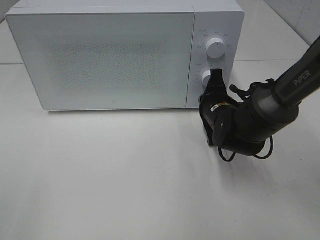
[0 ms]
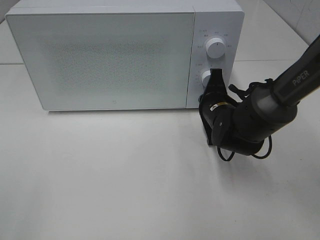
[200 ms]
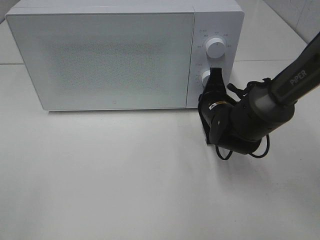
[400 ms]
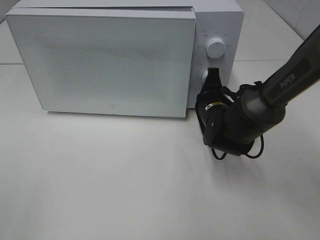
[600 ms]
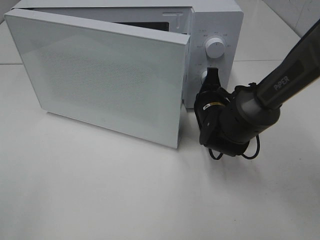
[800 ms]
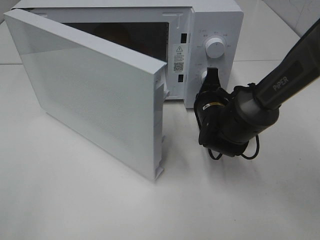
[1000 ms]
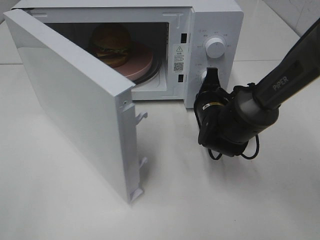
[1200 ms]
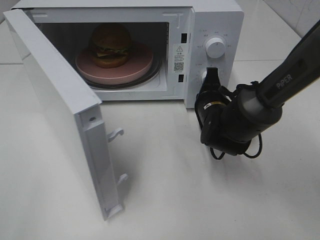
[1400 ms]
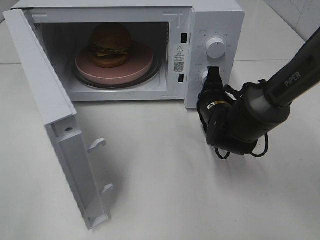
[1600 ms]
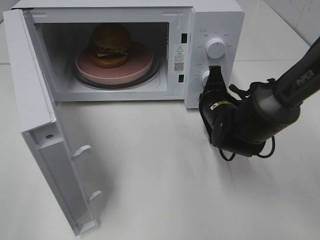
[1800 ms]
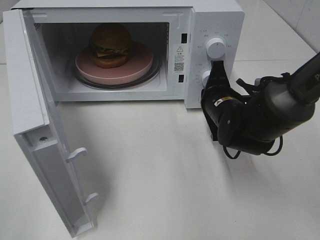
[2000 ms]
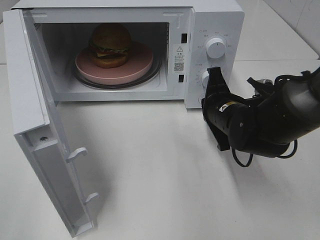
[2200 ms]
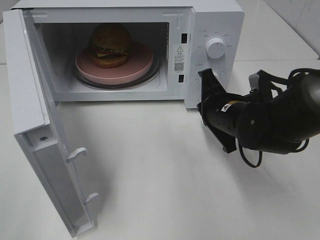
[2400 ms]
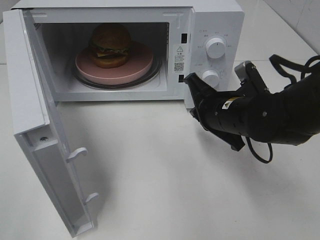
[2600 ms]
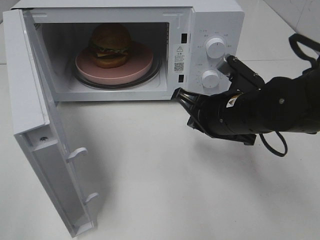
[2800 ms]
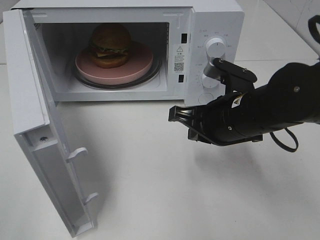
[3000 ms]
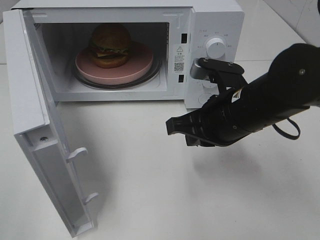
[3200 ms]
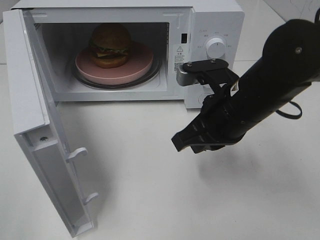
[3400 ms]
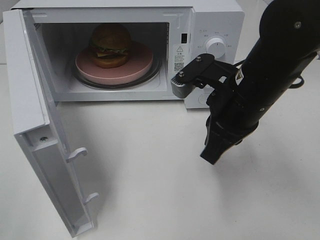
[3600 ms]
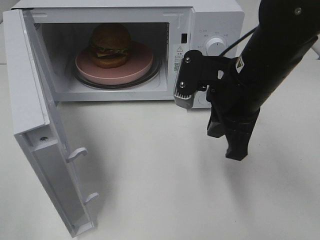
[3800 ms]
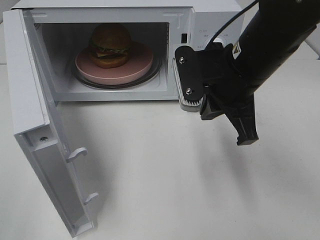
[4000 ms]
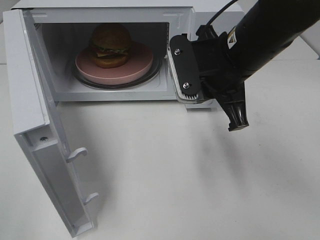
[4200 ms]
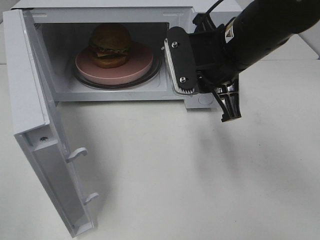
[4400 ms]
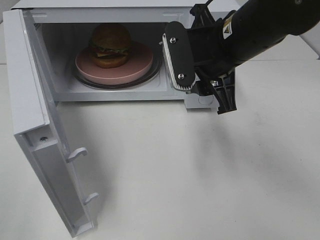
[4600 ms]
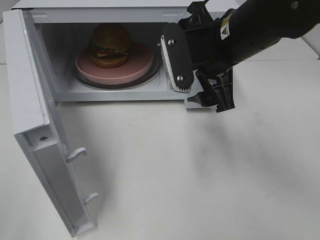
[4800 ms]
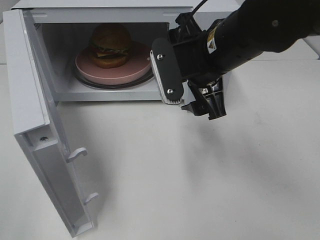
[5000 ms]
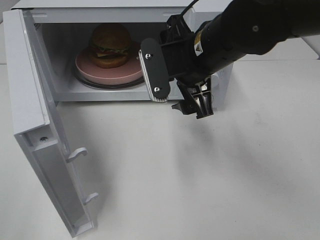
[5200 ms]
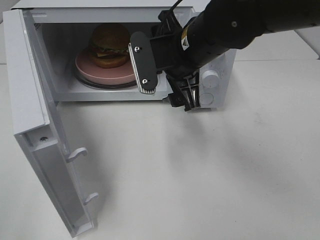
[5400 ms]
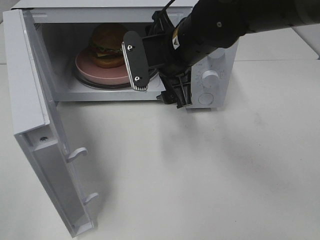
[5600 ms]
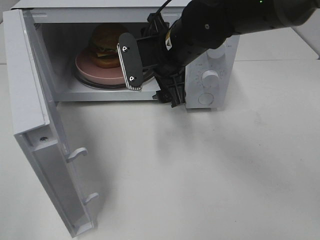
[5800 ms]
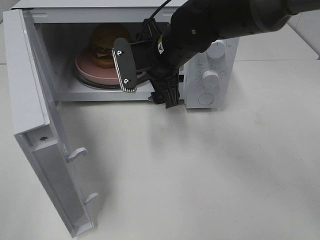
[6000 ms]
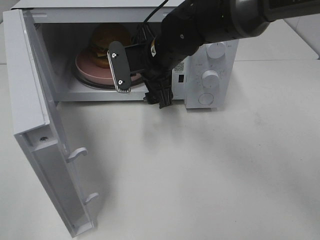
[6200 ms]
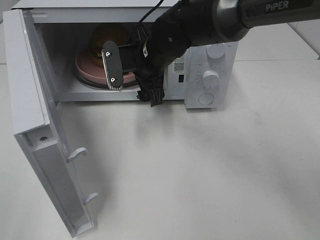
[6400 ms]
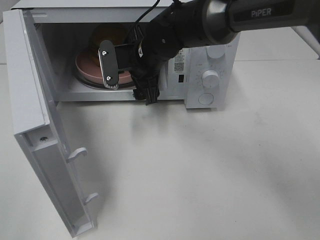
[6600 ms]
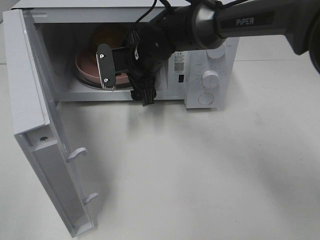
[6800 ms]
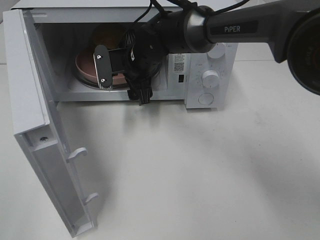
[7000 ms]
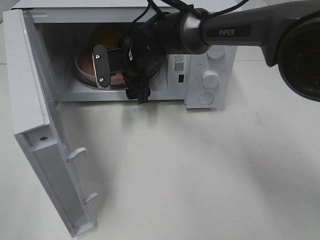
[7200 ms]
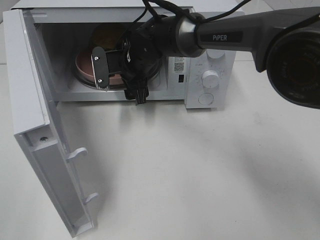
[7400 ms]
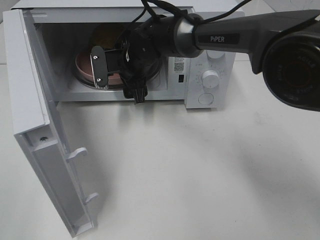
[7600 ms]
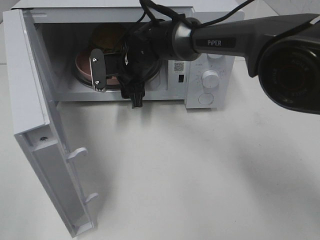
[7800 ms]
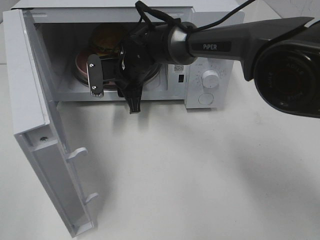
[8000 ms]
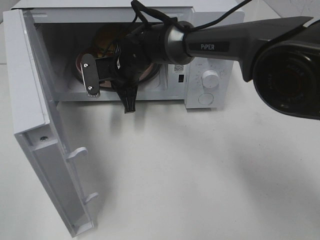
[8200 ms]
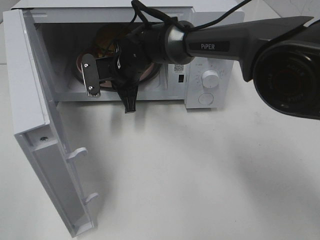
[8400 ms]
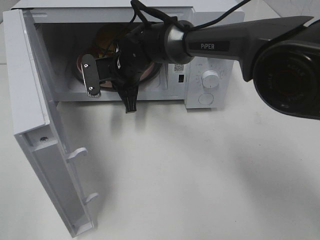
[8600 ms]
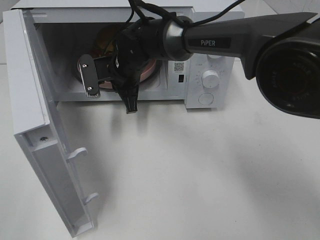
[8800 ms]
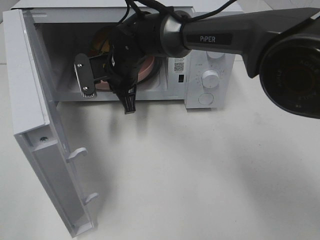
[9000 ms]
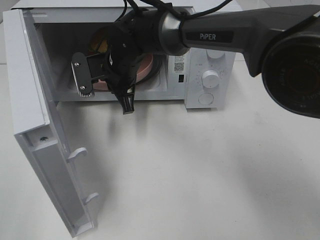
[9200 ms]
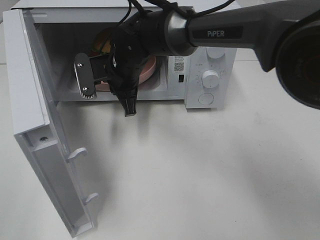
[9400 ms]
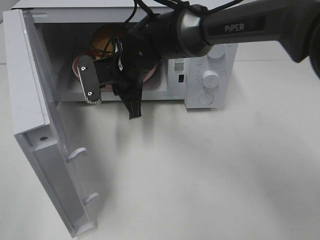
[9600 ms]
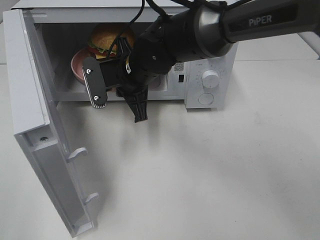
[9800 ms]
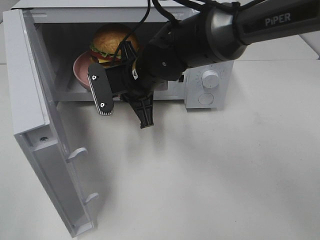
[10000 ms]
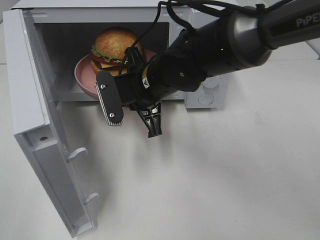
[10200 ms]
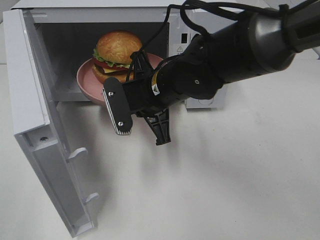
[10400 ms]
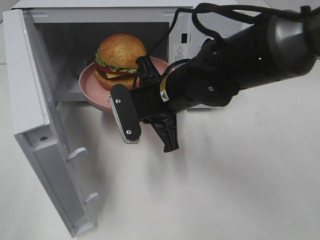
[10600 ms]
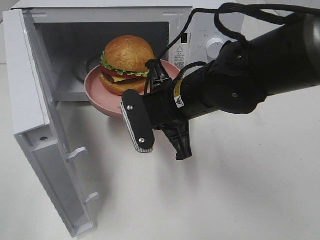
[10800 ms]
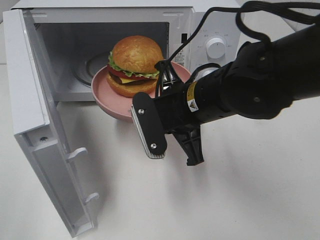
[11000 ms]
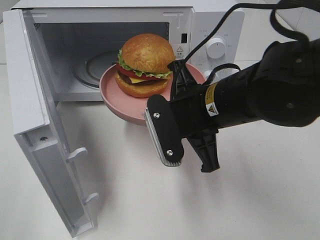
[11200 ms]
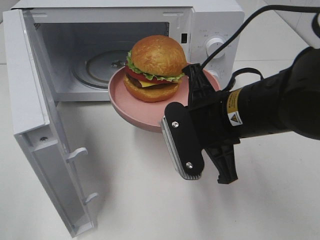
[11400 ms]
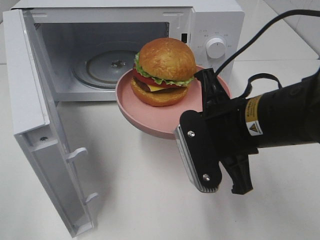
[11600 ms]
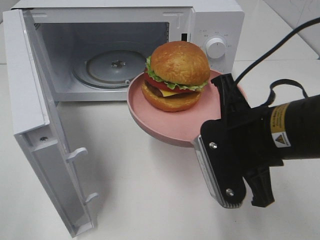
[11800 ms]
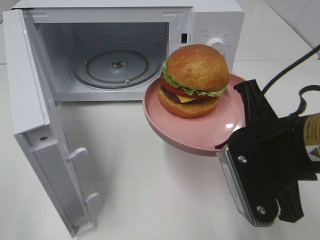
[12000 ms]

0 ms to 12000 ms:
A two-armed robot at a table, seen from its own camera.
Task of the whole recording: Heat the burger.
Step, 0 ms to 2000 ms: Right hand: press the switch.
Step, 2200 ms to 8000 ms: Right hand: grab the plate with the hamburger.
1600 ms to 3000 ms: The right gripper heads backward and upward, covering roughly 15 cm.
3000 ms to 4400 ms: The right gripper shifts approximately 10 cm upward.
4400 ms to 6000 ms: The right gripper shifts about 10 cm to the left, forward and downward, and opens.
6000 ms to 7600 ms: The right gripper moves forward, downward and to the left, some 10 cm.
7600 ms to 9000 ms: The right gripper closes up.
9000 ms to 10400 ms: The right gripper moves backward and to the right, some 10 cm.
10400 ms to 12000 ms: The right gripper moves backward and to the right, roughly 20 cm.

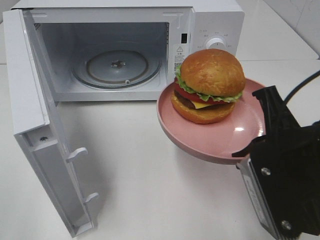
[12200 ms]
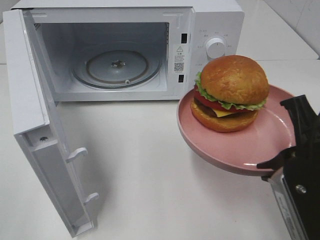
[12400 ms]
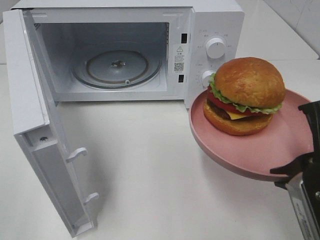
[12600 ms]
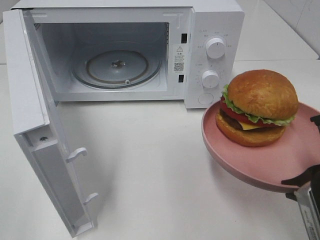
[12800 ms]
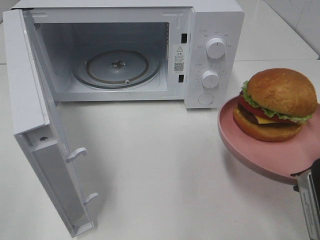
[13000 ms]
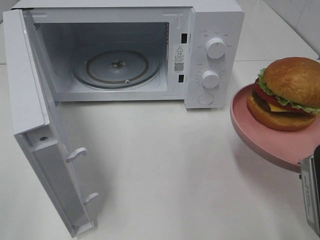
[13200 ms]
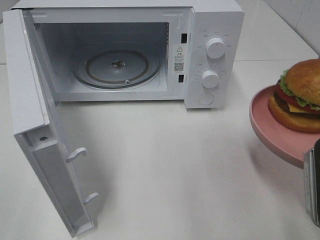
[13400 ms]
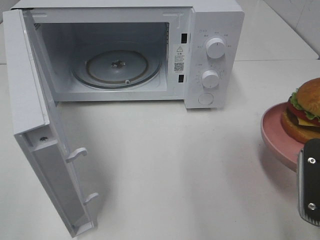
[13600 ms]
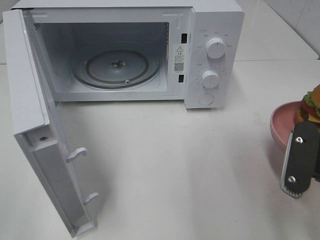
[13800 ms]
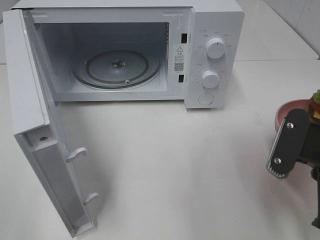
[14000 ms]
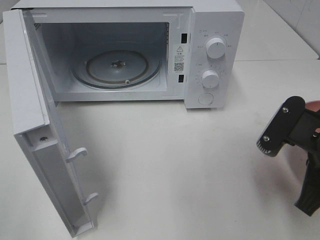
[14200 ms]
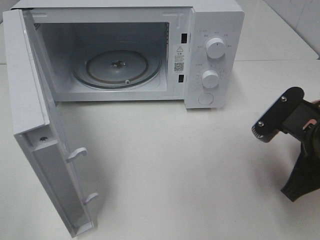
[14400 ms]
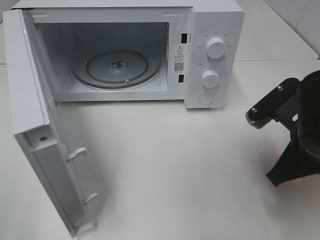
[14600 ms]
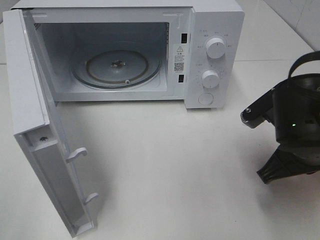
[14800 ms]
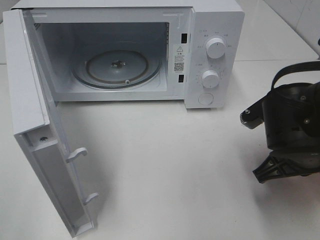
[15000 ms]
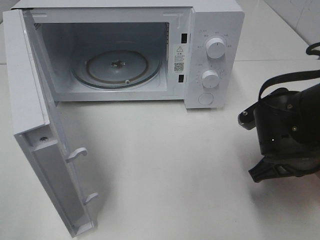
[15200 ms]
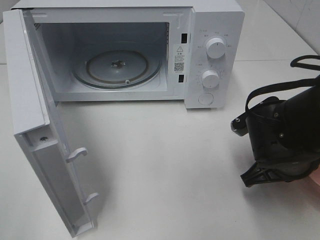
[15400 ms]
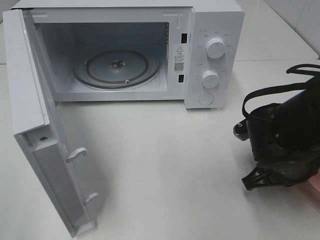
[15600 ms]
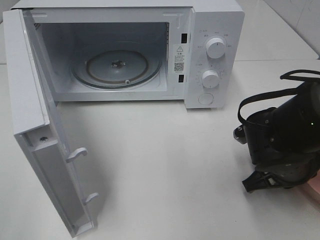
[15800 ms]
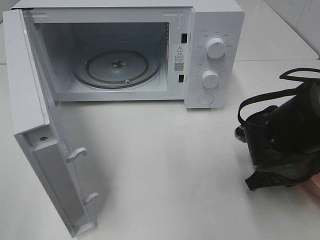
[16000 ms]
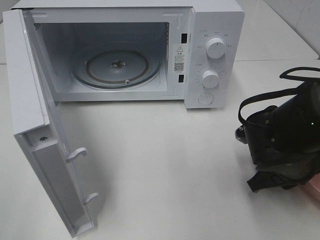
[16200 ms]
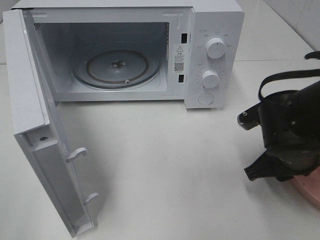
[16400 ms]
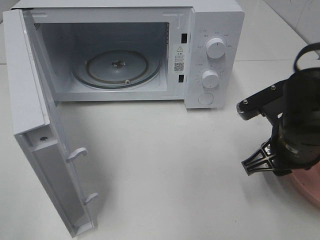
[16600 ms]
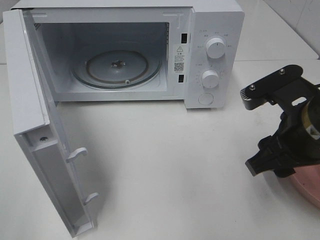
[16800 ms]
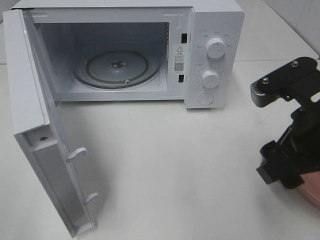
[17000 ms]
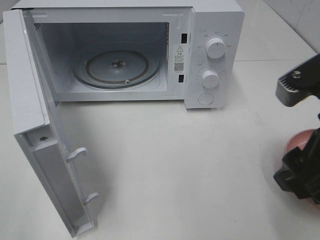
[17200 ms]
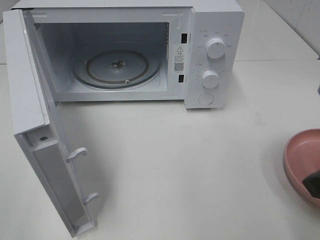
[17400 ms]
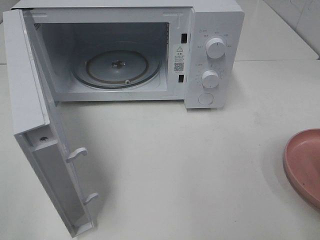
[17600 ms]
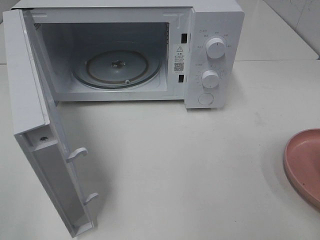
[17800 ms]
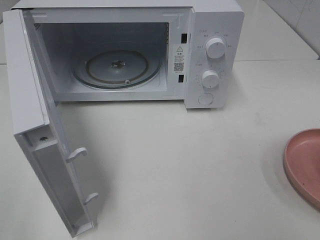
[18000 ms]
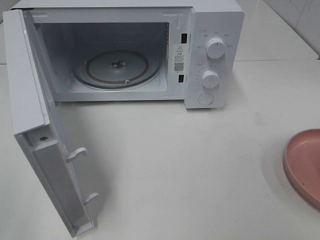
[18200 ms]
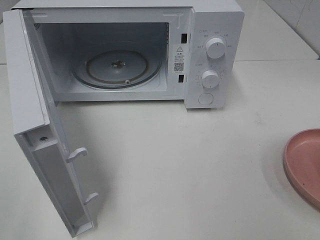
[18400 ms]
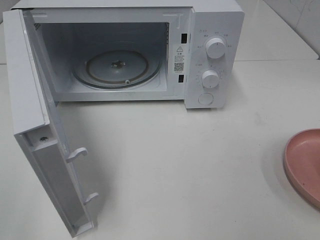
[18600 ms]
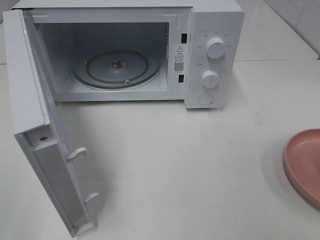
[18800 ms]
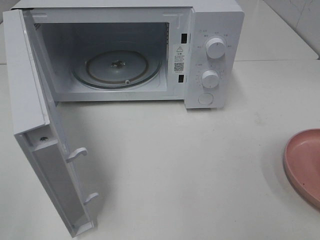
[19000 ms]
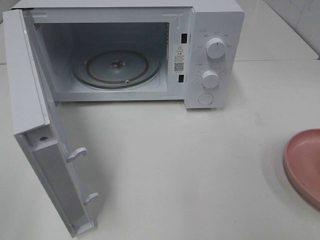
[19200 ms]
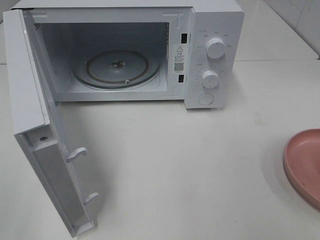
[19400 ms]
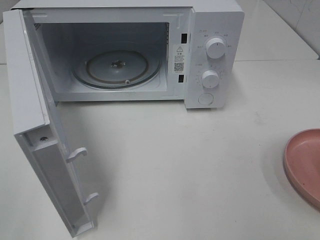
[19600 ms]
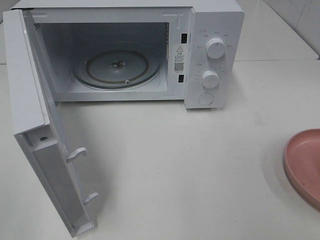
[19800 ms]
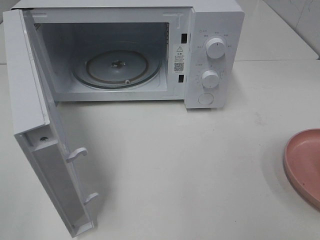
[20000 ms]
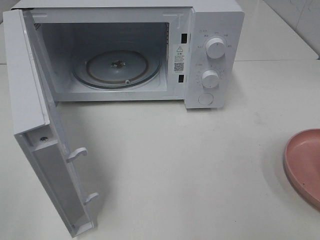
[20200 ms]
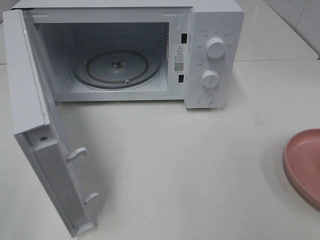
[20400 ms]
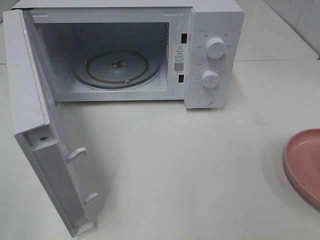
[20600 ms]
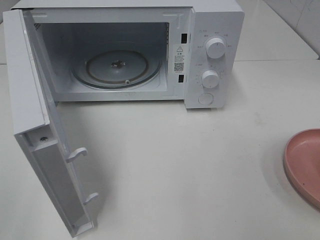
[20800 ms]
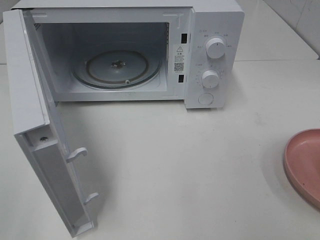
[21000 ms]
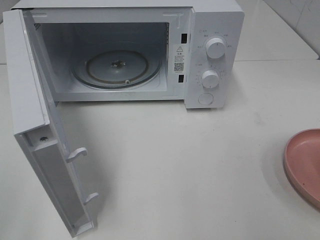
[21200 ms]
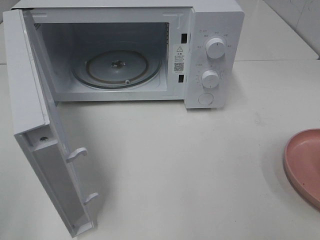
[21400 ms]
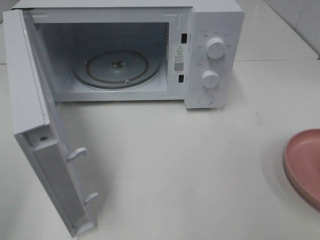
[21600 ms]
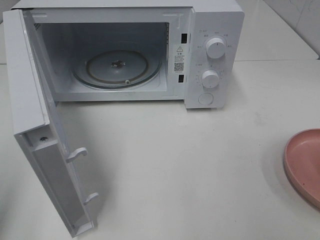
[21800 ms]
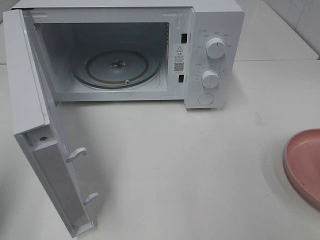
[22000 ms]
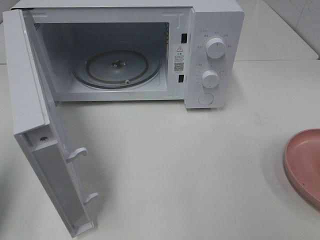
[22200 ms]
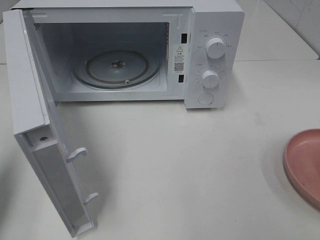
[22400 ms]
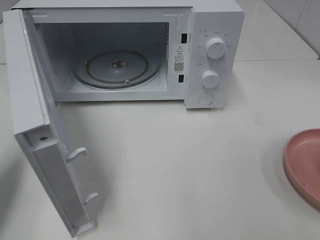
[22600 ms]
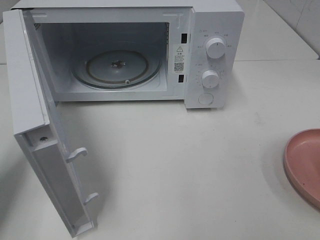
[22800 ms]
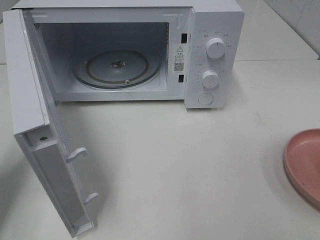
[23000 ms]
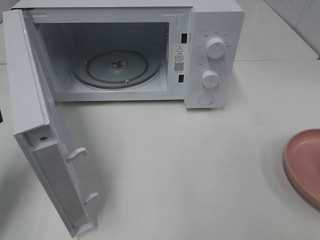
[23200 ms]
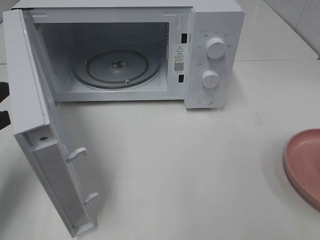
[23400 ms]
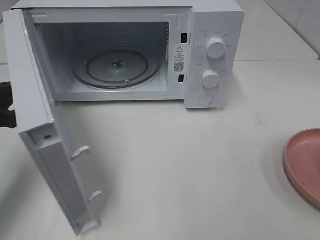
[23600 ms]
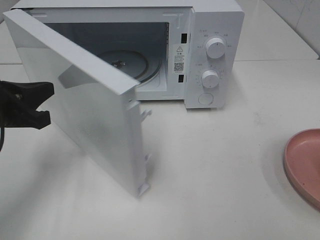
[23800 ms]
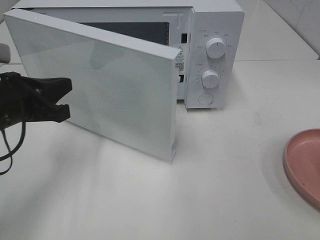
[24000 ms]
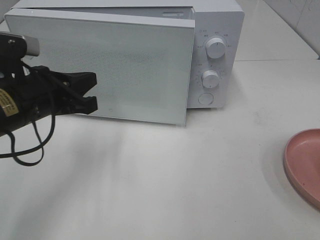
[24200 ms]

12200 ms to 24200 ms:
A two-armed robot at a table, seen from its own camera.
Task of the whole recording: Heat the burger.
Step, 12200 ms to 16400 ms: Right hand: place the plate on the table.
12200 ms to 13800 ms: The right gripper travels to the right by about 5 cm.
13800 ms to 15200 ms: The right gripper heads forward and downward, covering roughly 10 cm.
15200 ms to 16600 ms: The right gripper opens its fingers.
16600 ms to 18200 ms: The right gripper moves backward, upward and to the right, approximately 25 cm.
21200 ms to 22600 ms: The left gripper moves forward, about 15 cm, and closes its fingers.
22600 ms to 24200 ms: The left gripper shifts roughly 15 cm to the right and forward.
